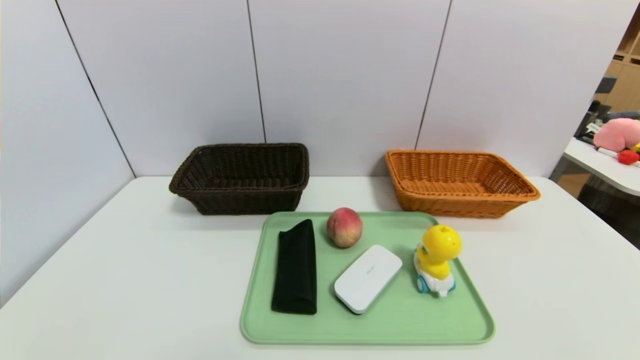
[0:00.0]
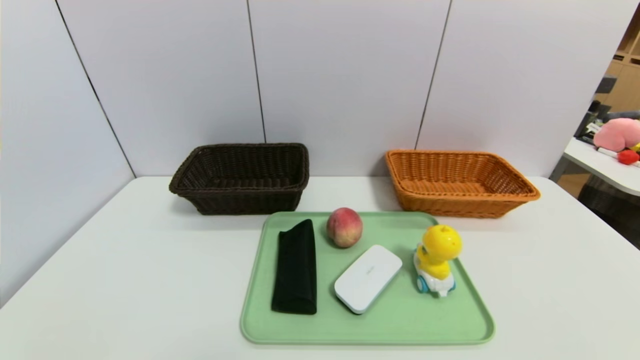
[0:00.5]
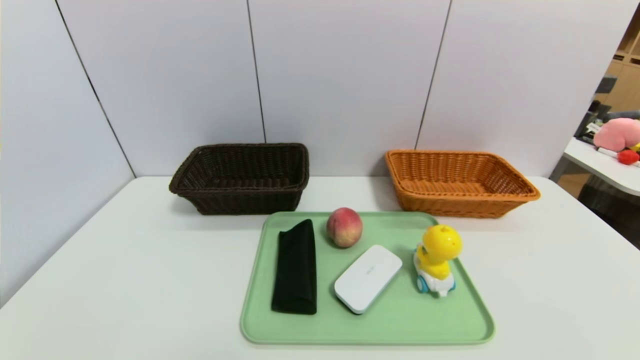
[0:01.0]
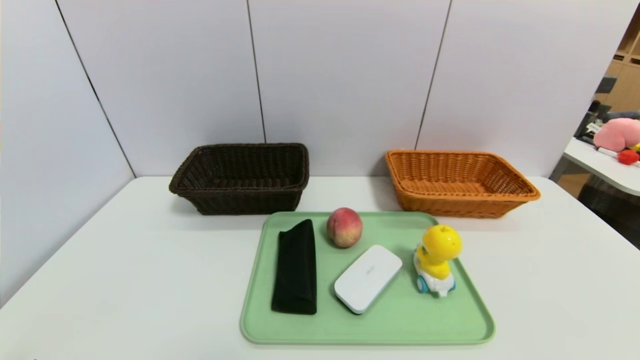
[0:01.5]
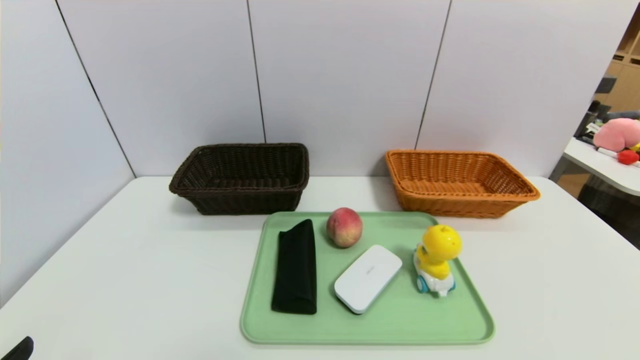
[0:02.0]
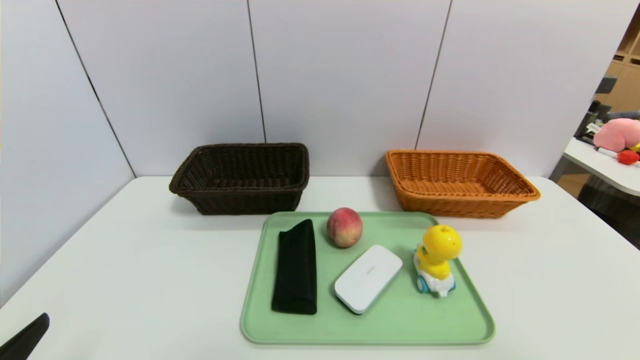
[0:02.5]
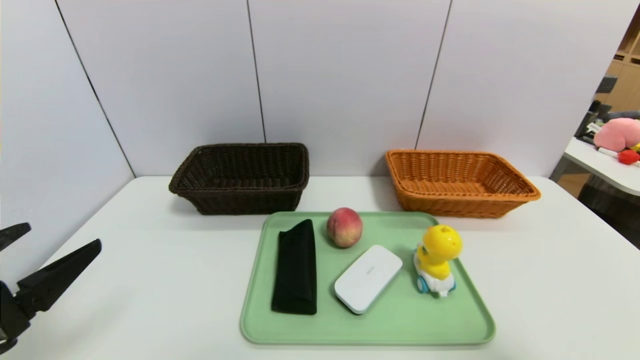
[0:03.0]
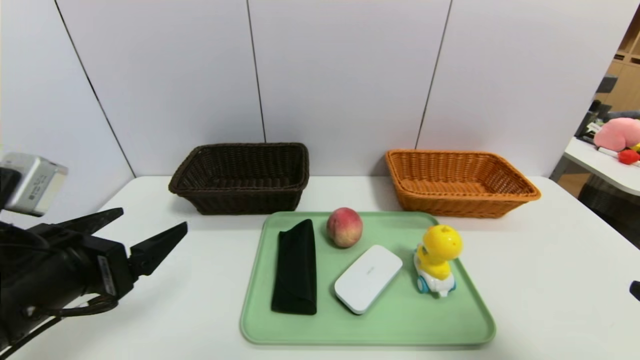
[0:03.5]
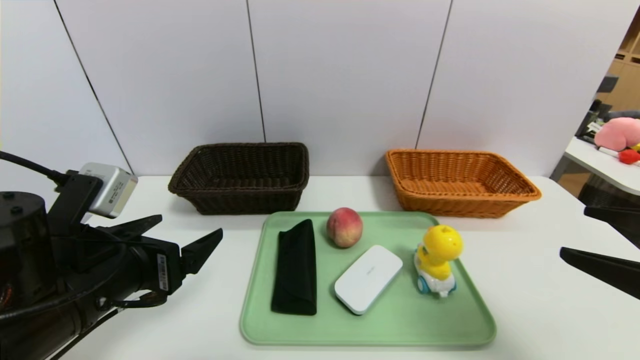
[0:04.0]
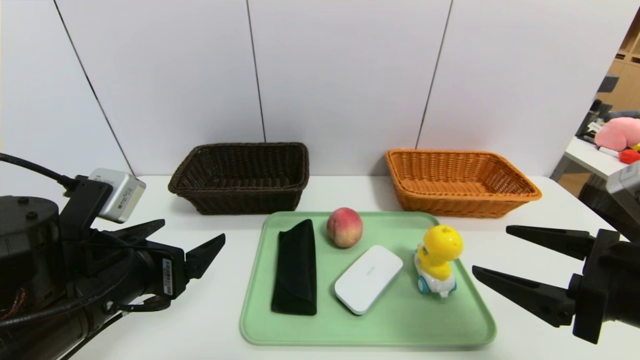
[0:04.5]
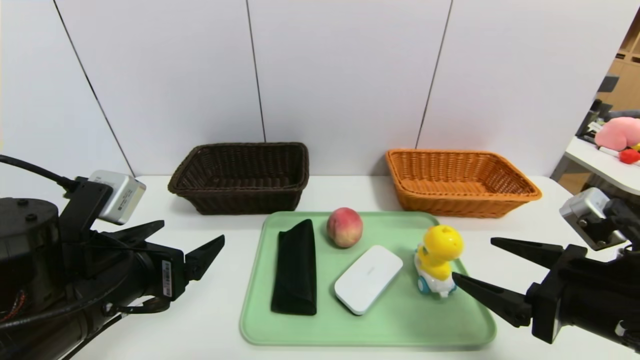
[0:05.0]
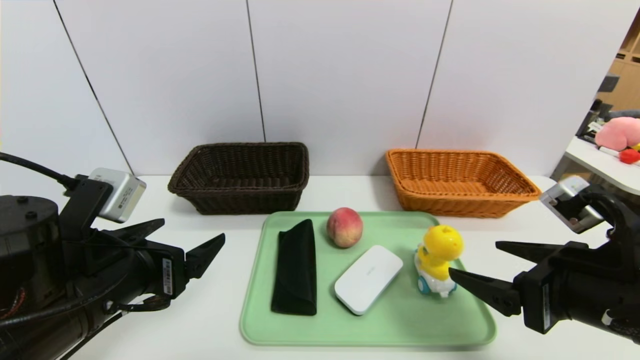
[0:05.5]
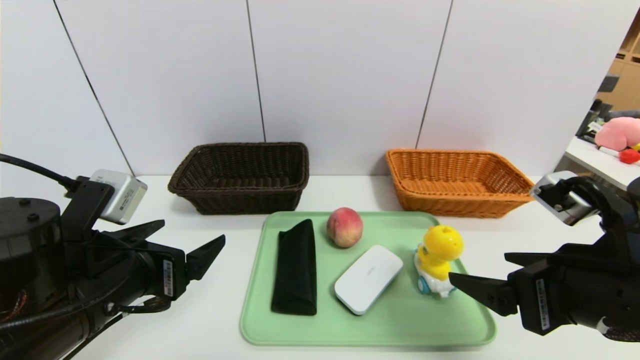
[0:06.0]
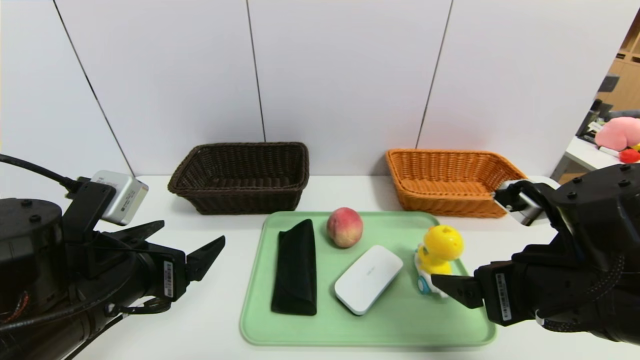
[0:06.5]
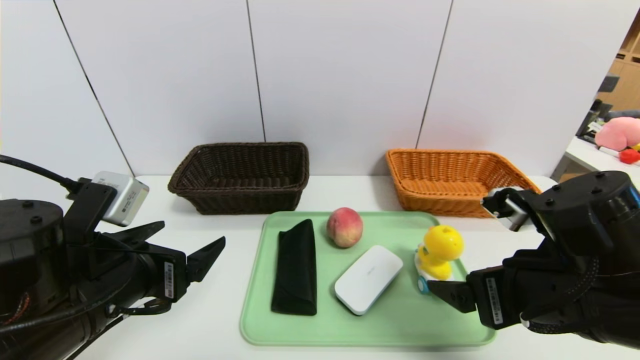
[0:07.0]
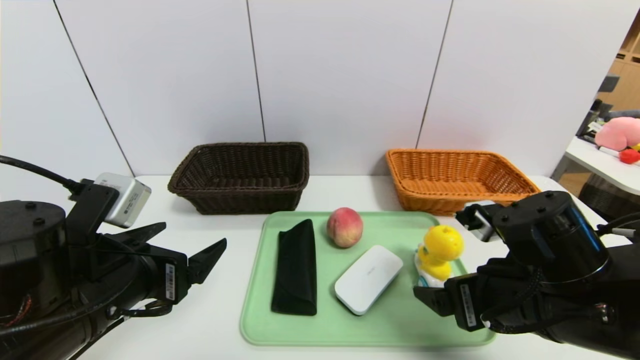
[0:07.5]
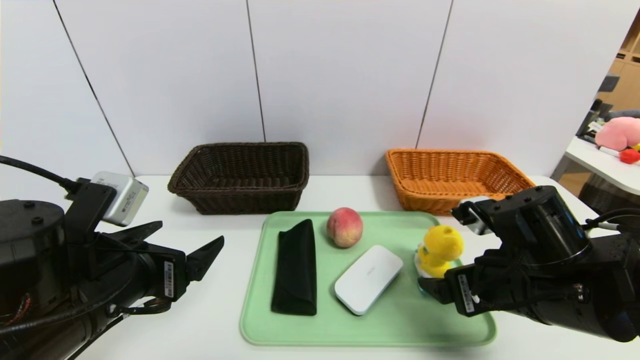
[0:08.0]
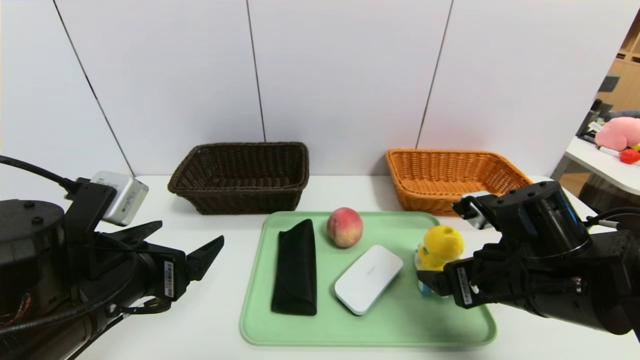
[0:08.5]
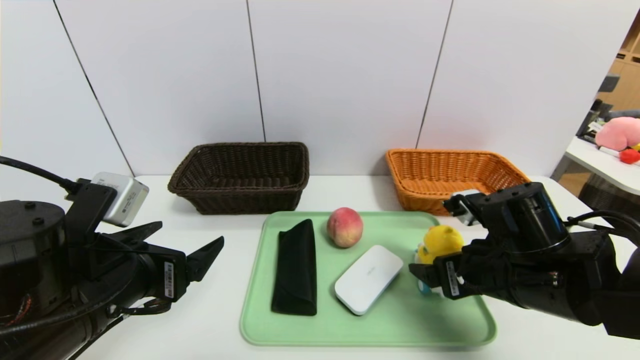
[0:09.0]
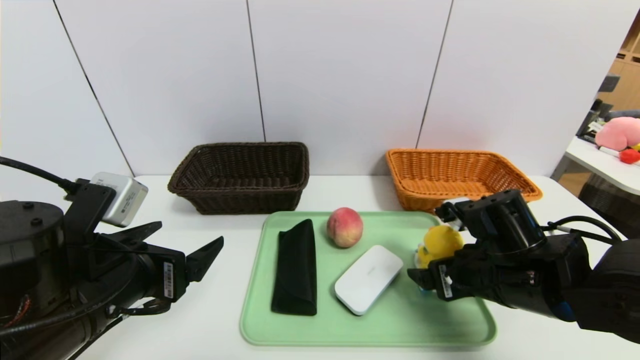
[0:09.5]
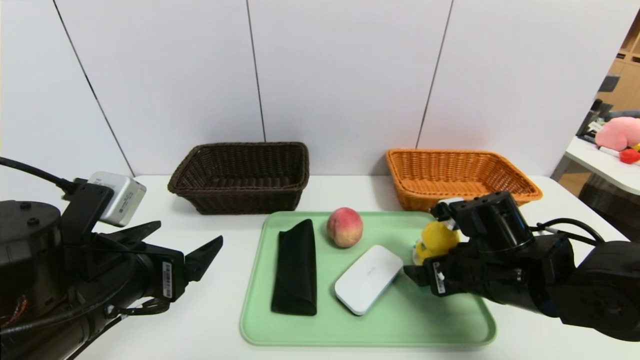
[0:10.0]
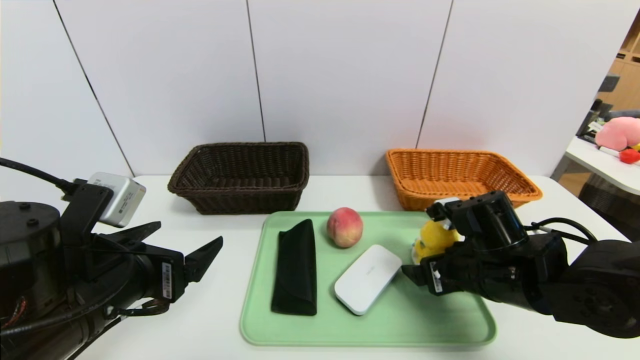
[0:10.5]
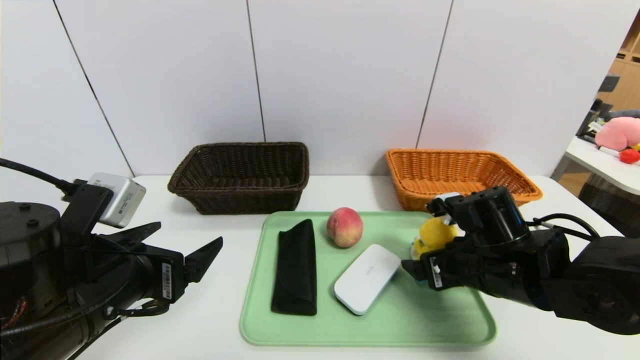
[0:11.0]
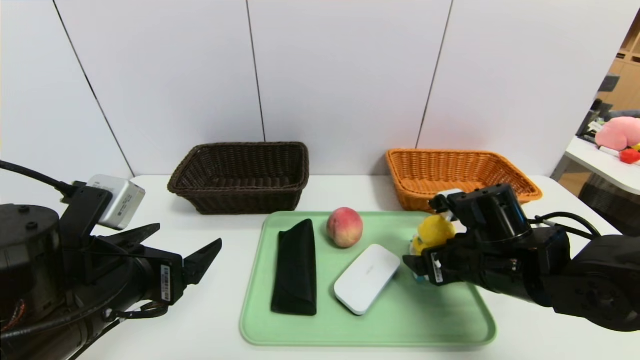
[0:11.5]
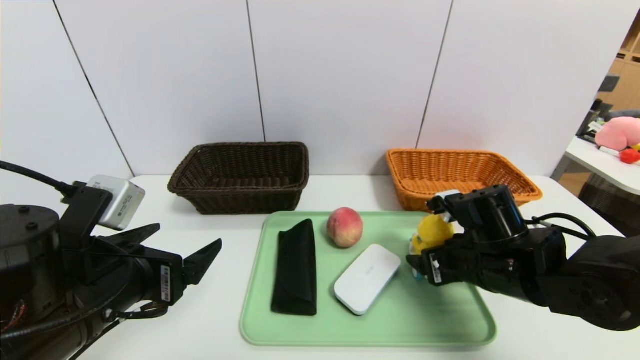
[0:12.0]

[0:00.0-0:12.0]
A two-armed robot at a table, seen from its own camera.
Task of the whole recording: place the food in the right basket with the right gripper, and place the non food items in the left basket with the left gripper.
0:02.0 to 0:04.0: The right gripper is displaced forward by roughly 15 cm, while the left gripper is displaced forward and to the right by about 20 cm.
0:04.0 to 0:06.0: The right gripper heads to the left, covering about 10 cm.
0:06.0 to 0:08.0: The right gripper heads downward and forward, covering roughly 10 cm.
0:08.0 to 0:10.0: The right gripper moves roughly 5 cm.
0:10.0 to 0:12.0: Both grippers stay put.

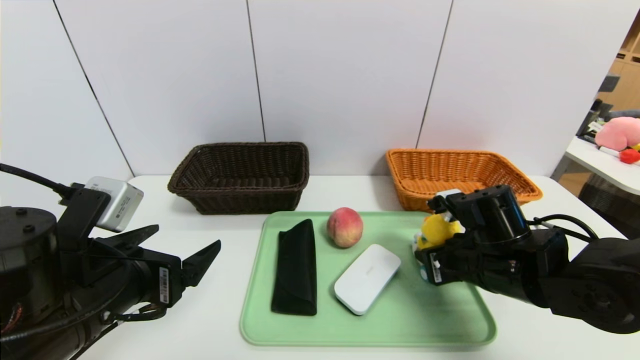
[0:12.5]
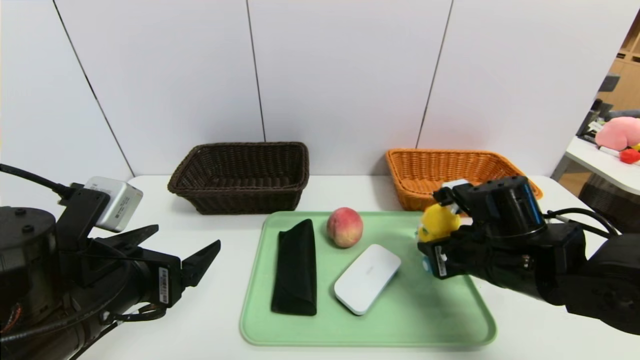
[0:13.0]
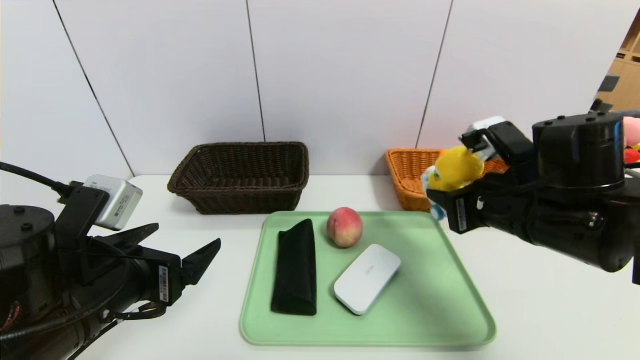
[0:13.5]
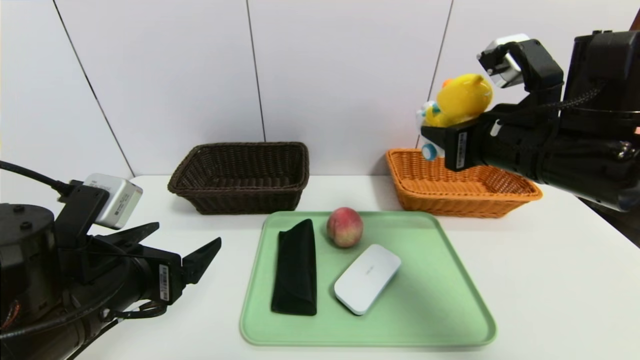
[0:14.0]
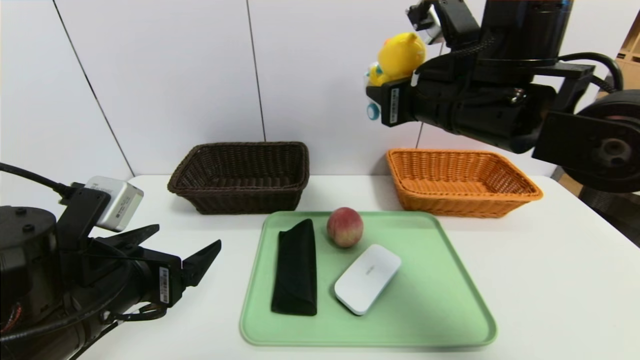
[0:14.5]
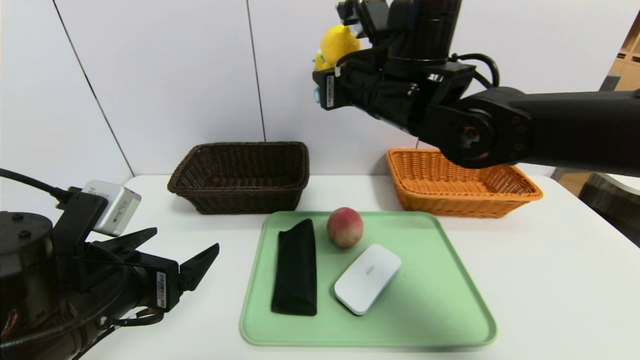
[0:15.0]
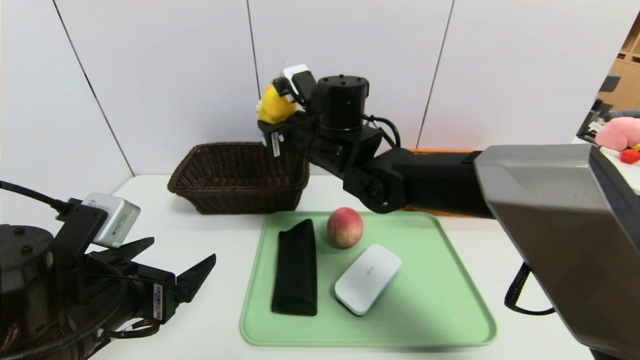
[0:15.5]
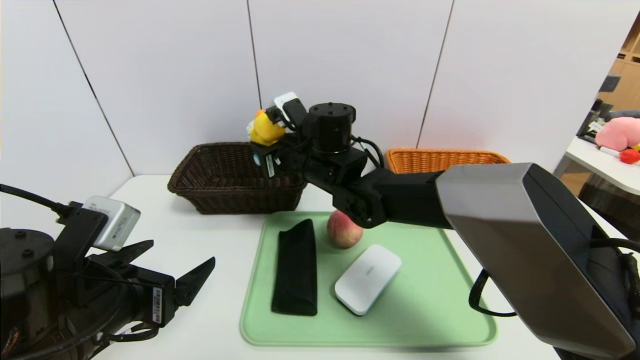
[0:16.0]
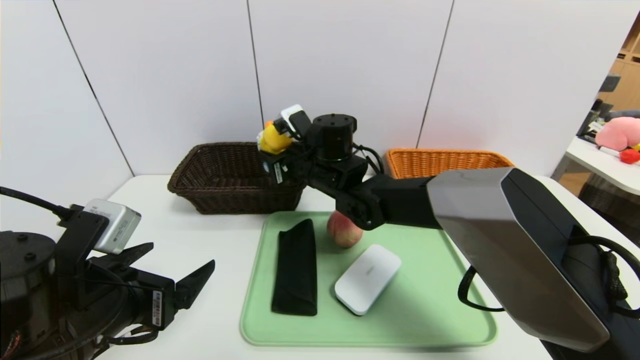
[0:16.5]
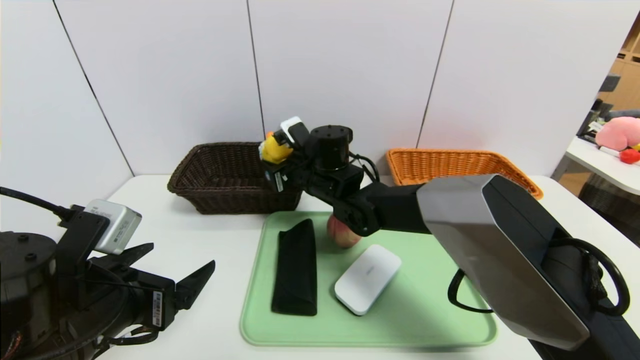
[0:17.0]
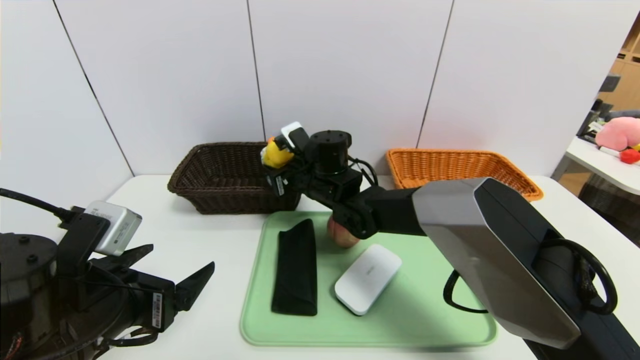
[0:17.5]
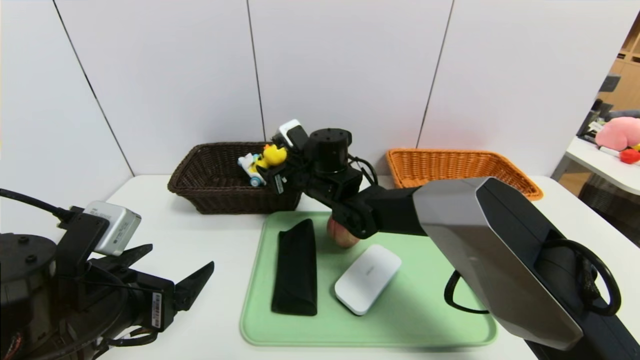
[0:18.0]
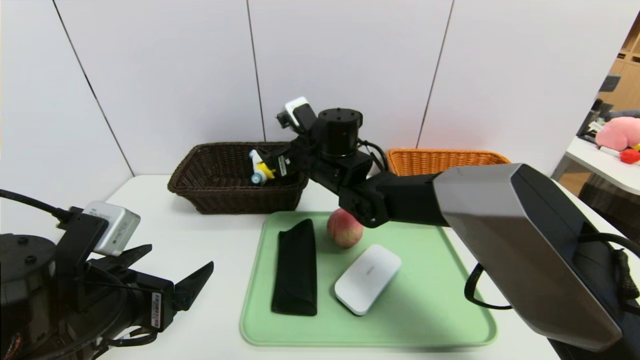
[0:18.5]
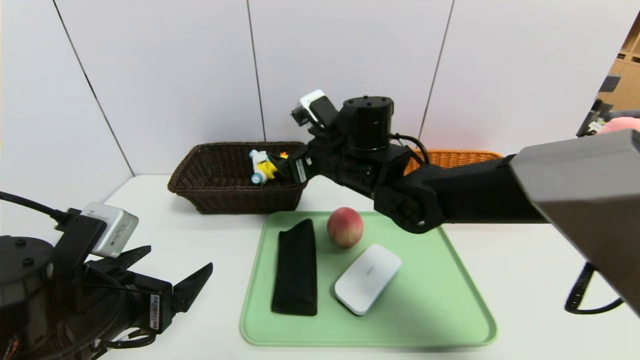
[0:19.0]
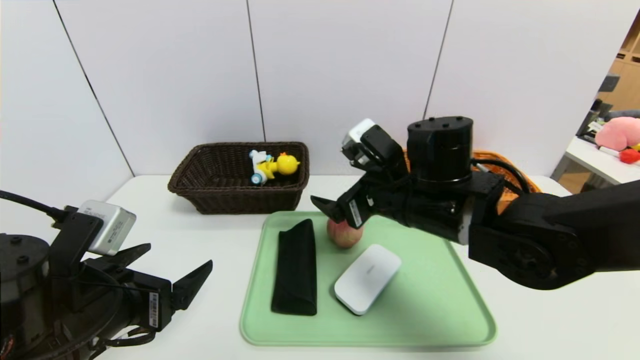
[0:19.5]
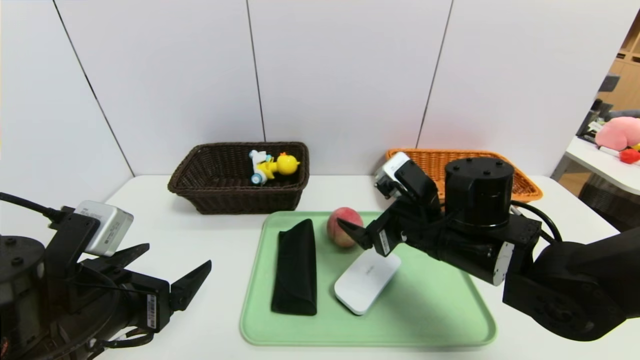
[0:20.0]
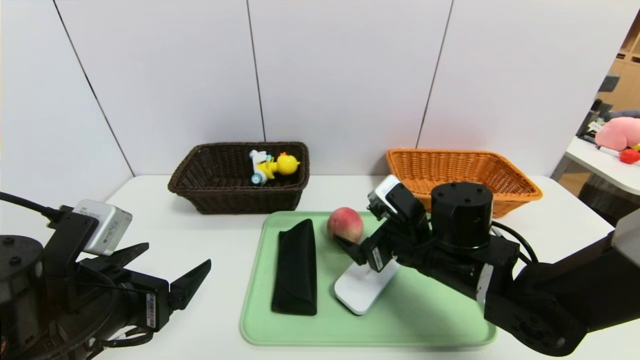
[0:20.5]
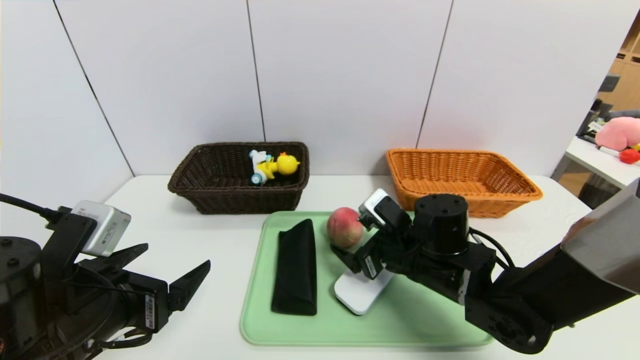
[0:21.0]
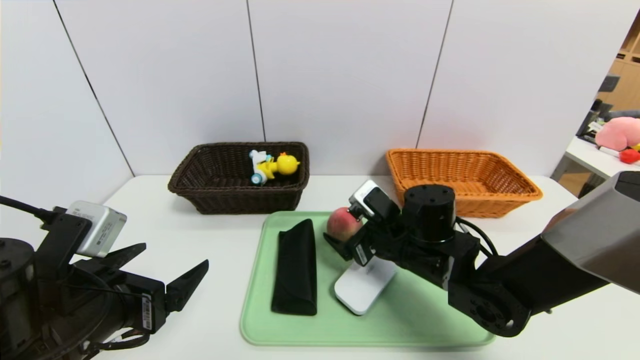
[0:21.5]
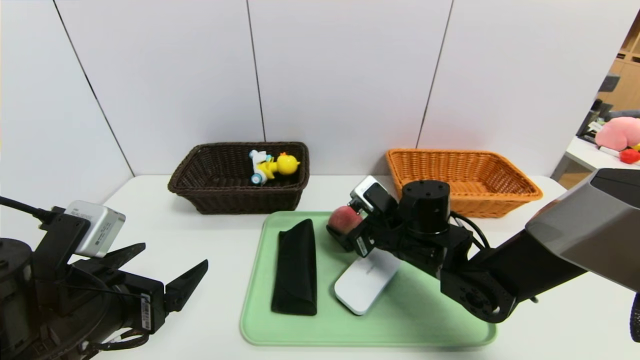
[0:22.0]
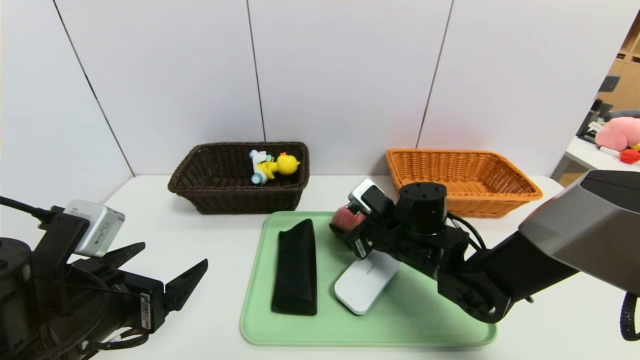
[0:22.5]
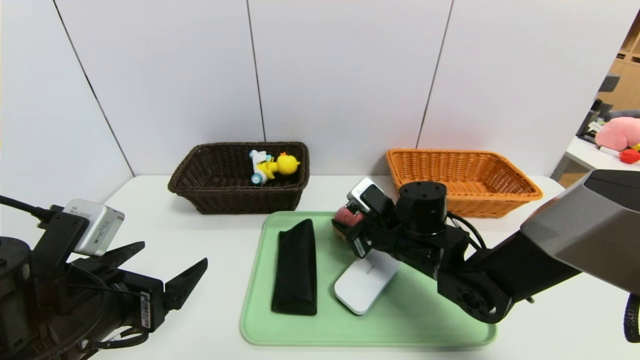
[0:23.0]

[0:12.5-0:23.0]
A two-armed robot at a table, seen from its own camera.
Task of the whole recording: place the food in the right basket with the right gripper, and place the non food items in the left basket with the left gripper.
0:12.5 to 0:14.5: The right gripper heads upward, covering about 20 cm.
0:14.5 to 0:16.5: The right gripper moves to the left, downward and forward, some 20 cm.
0:16.5 to 0:19.0: The right gripper moves about 5 cm, and opens.
0:19.0 to 0:21.0: The right gripper shifts some 15 cm downward, to the right and backward.
0:21.0 to 0:23.0: The right gripper closes up.
